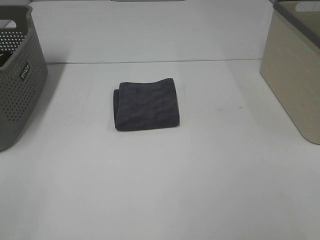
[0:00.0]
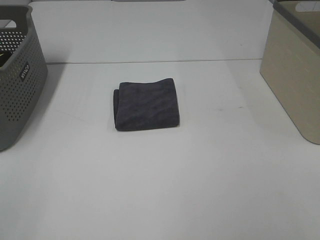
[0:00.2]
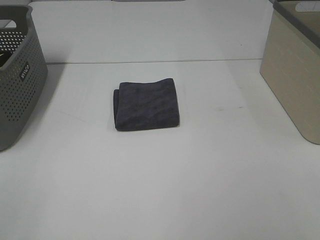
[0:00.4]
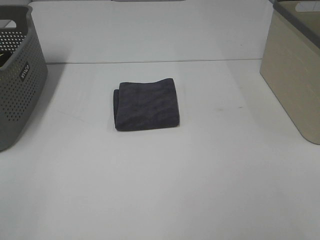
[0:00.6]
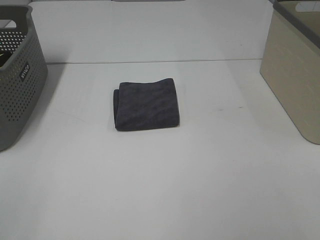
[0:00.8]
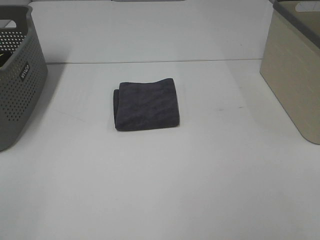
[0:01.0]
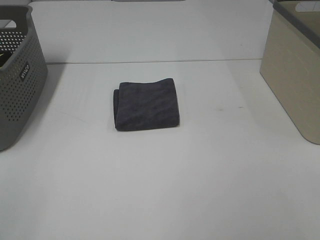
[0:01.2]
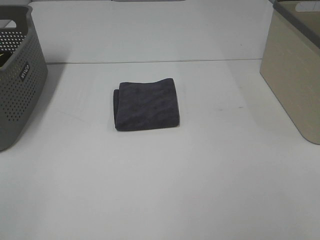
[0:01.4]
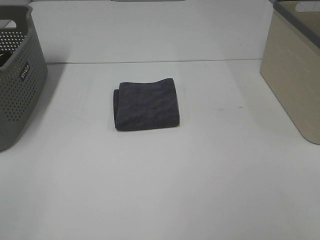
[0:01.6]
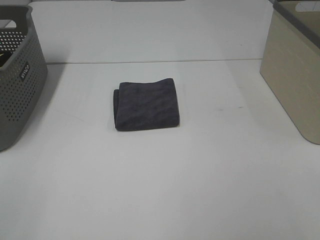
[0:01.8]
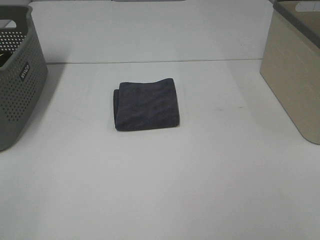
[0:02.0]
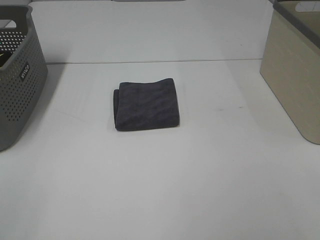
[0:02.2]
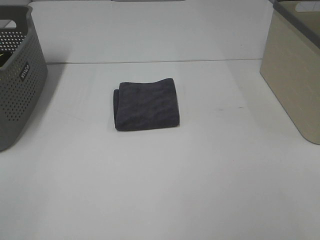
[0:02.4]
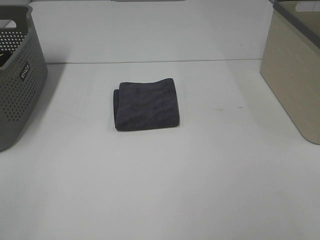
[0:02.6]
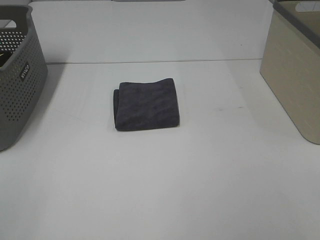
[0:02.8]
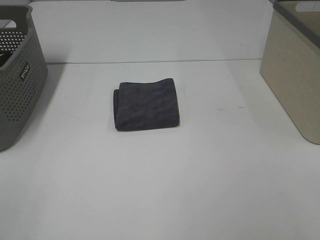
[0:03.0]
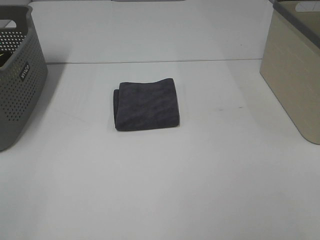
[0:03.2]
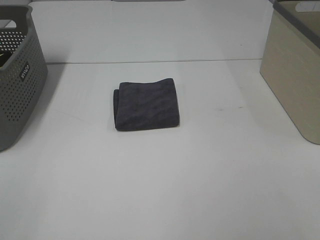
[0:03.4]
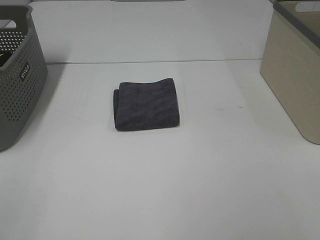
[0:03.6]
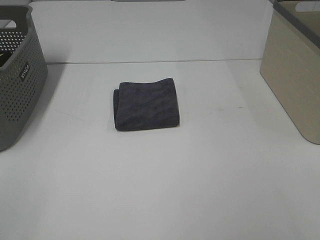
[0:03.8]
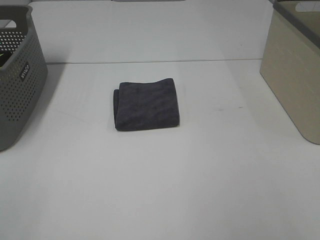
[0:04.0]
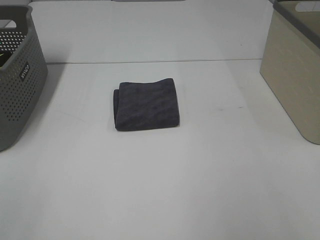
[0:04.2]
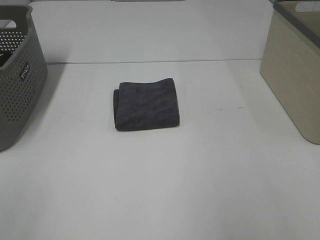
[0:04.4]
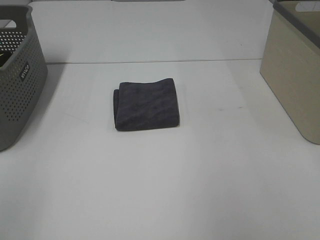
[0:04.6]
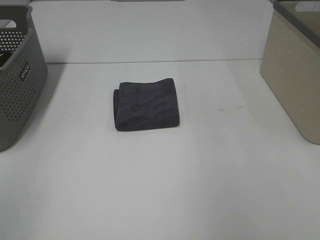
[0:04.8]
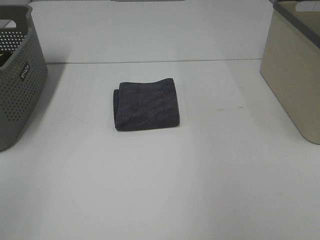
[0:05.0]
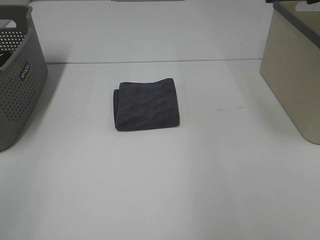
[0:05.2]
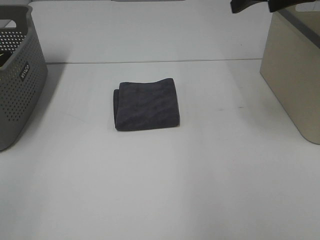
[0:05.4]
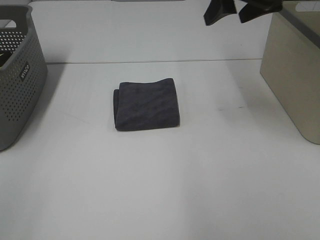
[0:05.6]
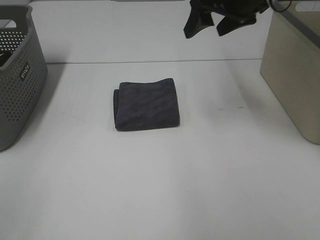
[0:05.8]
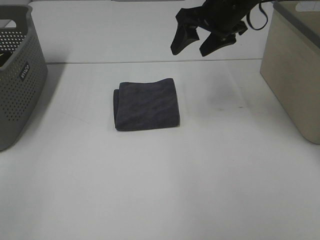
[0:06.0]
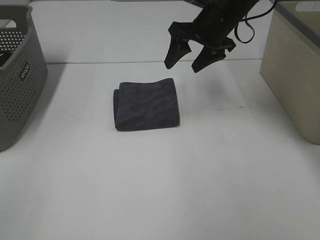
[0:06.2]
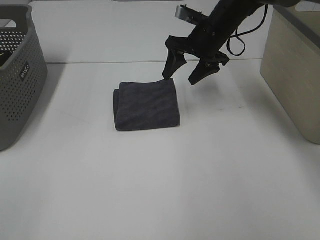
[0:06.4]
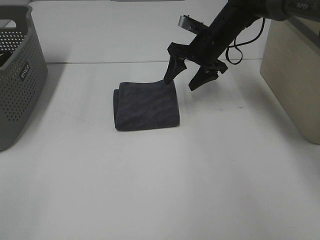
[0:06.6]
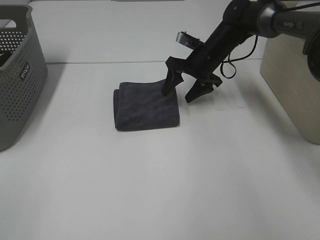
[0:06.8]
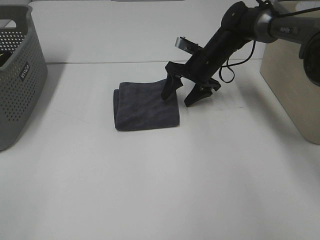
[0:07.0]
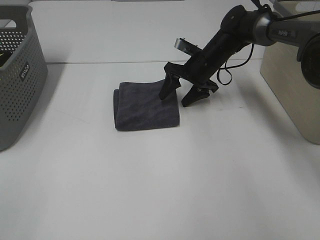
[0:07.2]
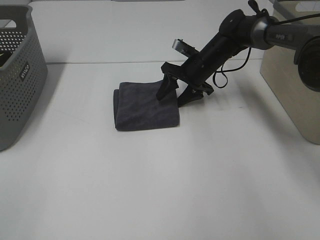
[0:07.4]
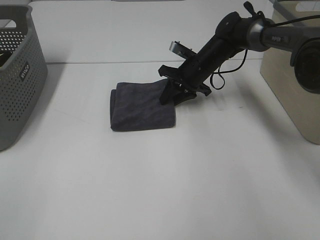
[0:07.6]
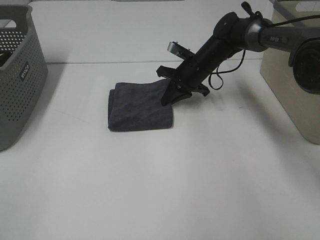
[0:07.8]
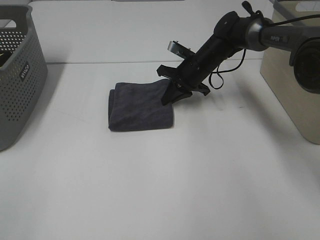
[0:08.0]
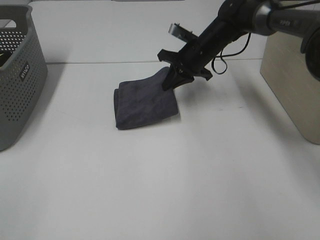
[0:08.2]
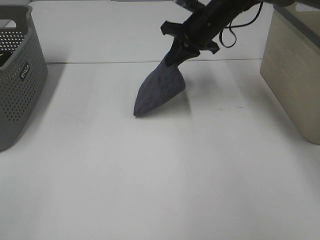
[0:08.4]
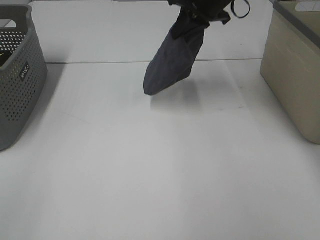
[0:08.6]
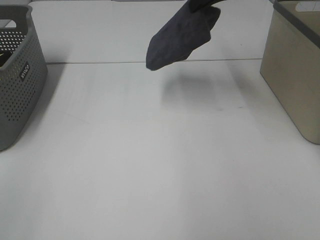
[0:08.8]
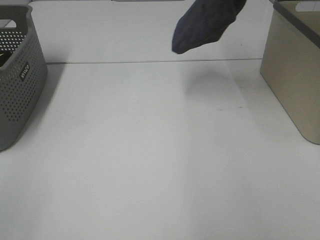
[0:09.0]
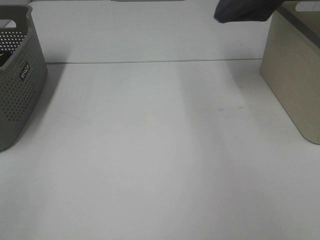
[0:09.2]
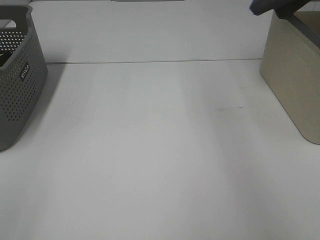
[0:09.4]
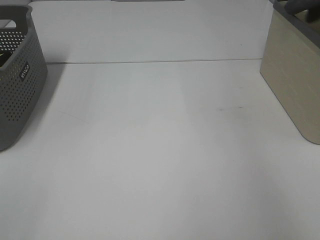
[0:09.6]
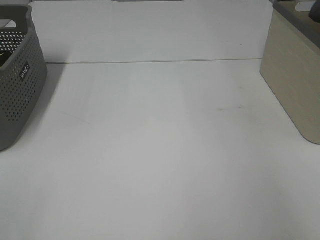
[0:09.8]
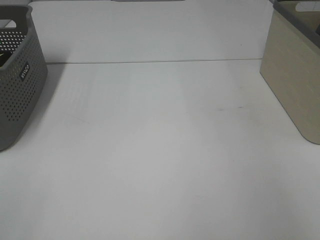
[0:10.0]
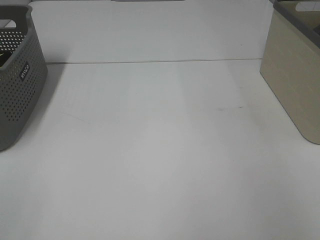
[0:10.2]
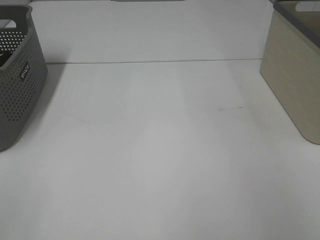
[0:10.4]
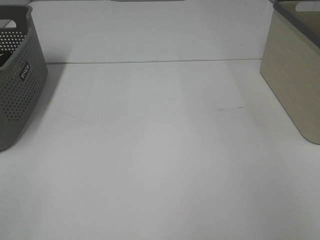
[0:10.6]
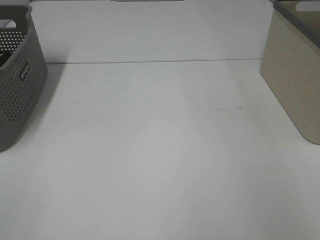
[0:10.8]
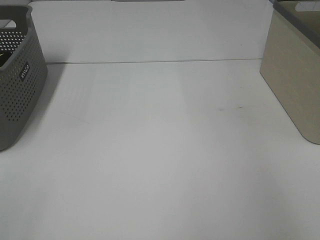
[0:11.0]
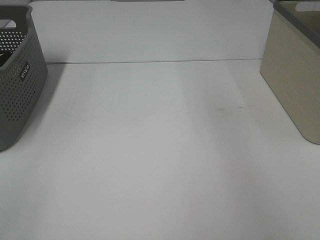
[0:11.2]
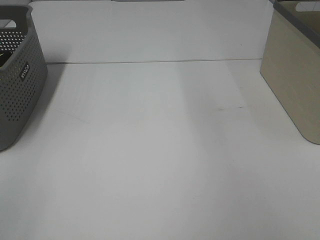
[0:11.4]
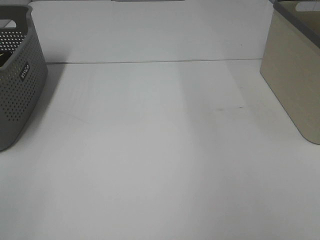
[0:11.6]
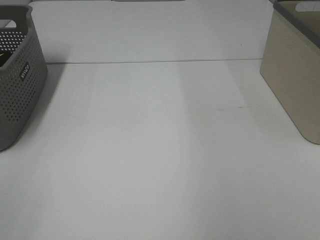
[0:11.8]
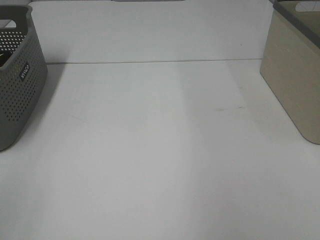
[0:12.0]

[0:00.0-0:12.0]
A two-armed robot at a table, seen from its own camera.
Step, 0:00.0 to 0:07.6: Right hand: grab the folded grey towel.
Step, 0:07.8 to 0:10.8: Right hand: place the grey towel in right basket.
0:00.0 to 0:03.0: Both grippers stay about where they are.
0:04.4 to 0:06.0: The right gripper travels forward and to the left by some 35 cm.
0:06.0 to 0:07.6: The right gripper travels downward by some 15 cm, and closes its fingers.
0:07.6 to 0:09.0: The right gripper moves upward, approximately 30 cm.
0:09.0 to 0:10.4: The right gripper is displaced to the right by about 25 cm.

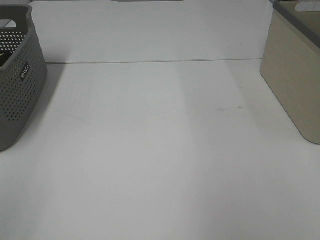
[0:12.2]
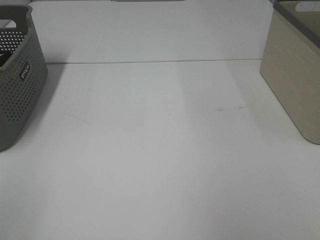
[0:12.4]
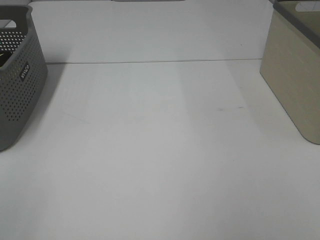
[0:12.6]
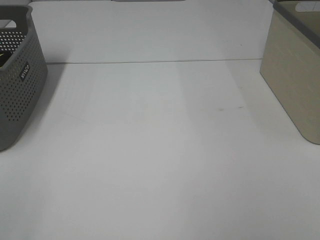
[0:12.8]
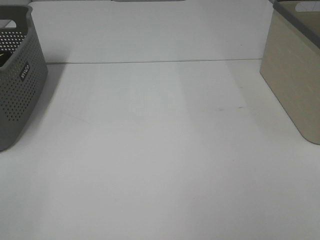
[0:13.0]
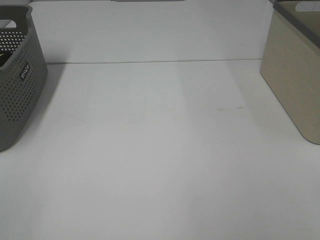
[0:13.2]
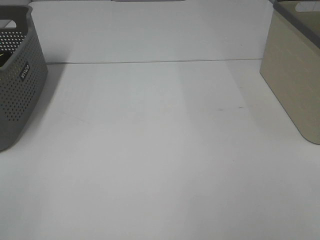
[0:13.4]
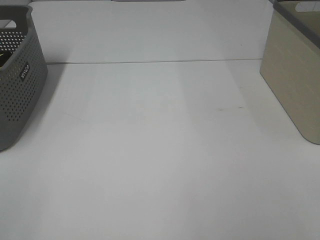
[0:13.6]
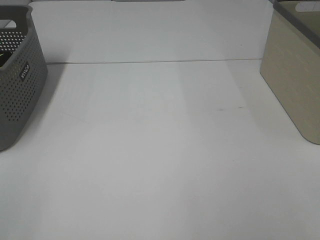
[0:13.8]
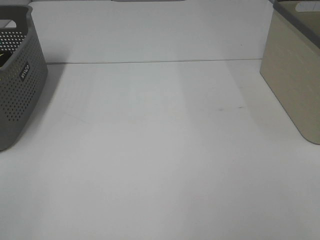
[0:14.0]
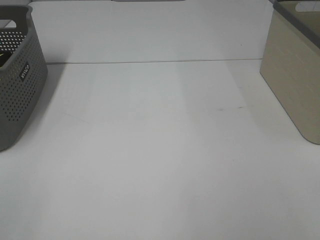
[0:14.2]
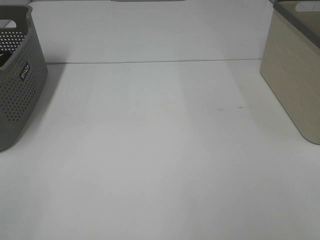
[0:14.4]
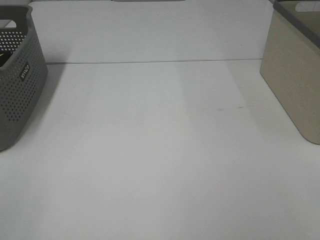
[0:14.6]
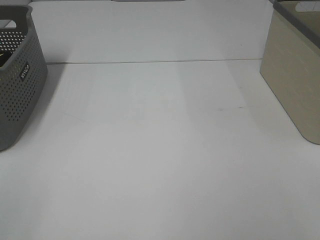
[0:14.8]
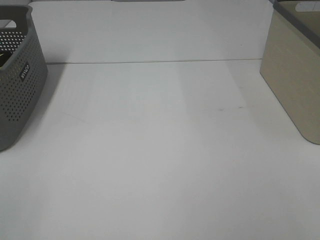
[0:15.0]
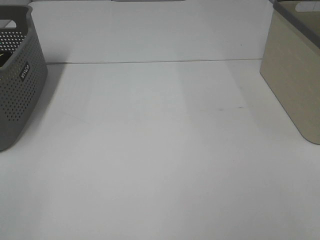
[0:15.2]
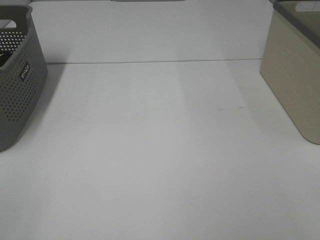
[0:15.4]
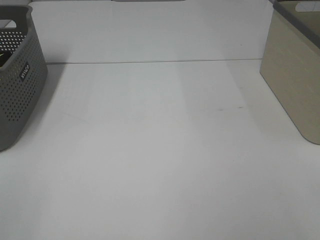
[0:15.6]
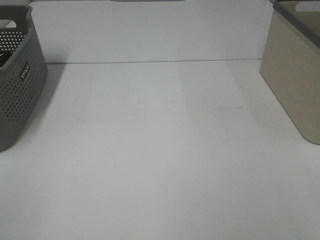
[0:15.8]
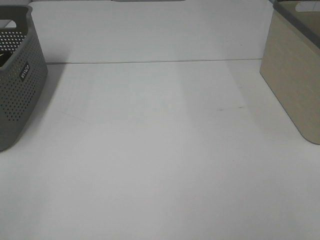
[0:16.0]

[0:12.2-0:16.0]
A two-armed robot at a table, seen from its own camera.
0:14.8 to 0:16.0: Both grippers stay put.

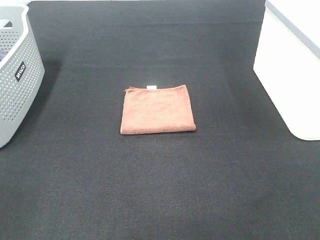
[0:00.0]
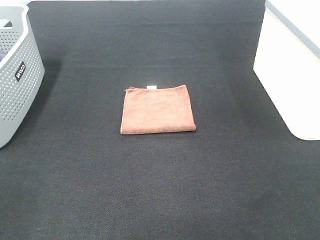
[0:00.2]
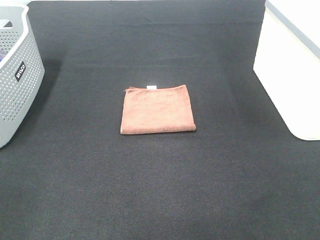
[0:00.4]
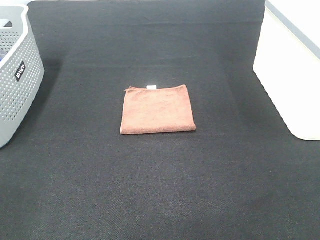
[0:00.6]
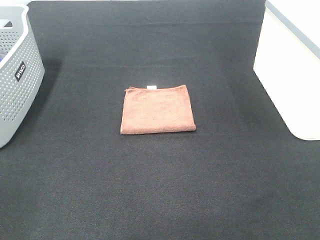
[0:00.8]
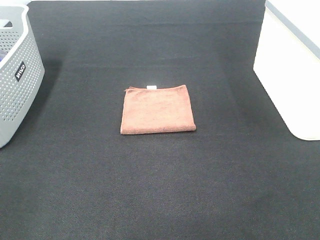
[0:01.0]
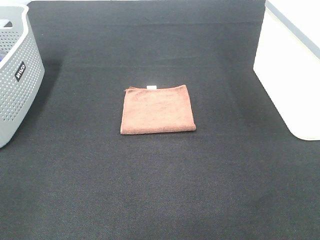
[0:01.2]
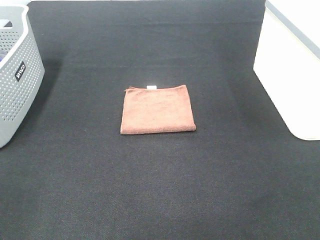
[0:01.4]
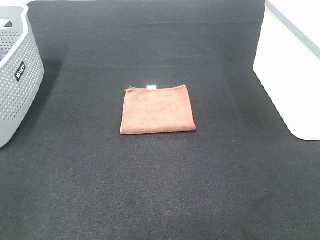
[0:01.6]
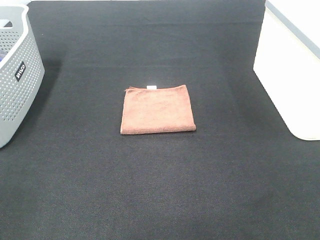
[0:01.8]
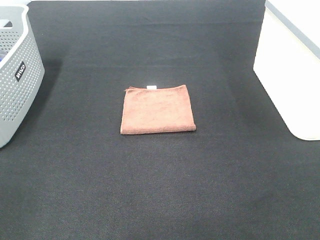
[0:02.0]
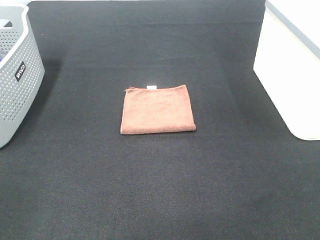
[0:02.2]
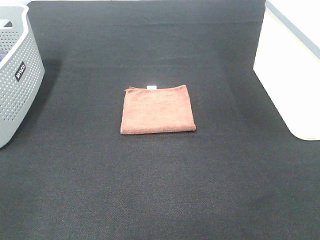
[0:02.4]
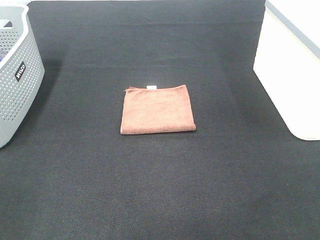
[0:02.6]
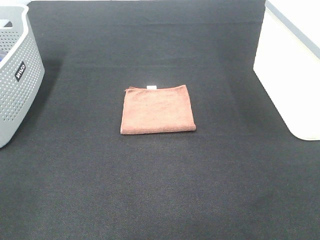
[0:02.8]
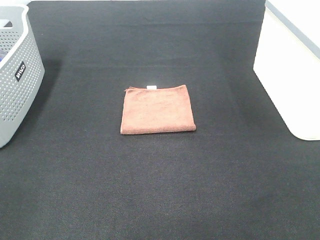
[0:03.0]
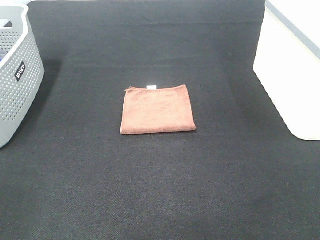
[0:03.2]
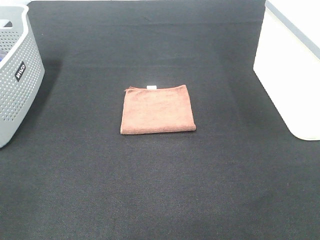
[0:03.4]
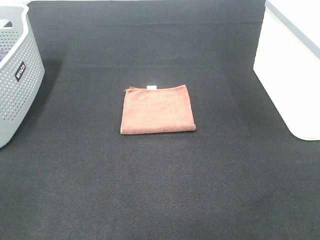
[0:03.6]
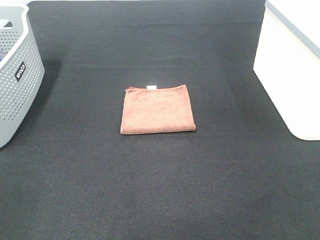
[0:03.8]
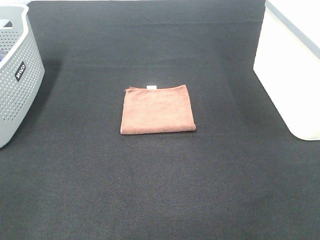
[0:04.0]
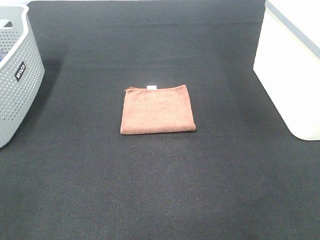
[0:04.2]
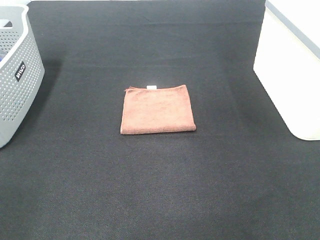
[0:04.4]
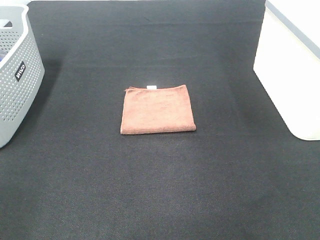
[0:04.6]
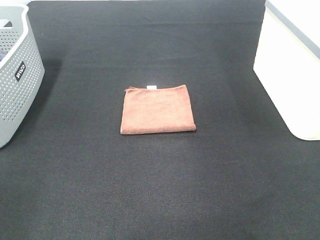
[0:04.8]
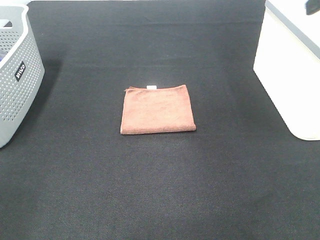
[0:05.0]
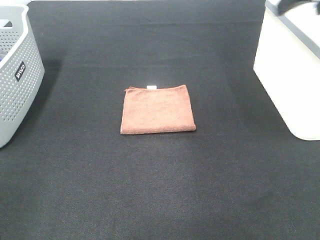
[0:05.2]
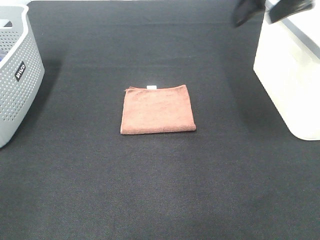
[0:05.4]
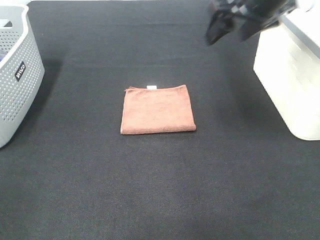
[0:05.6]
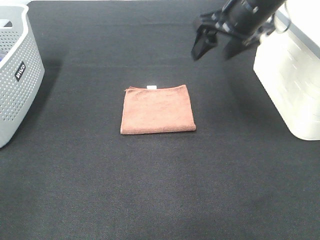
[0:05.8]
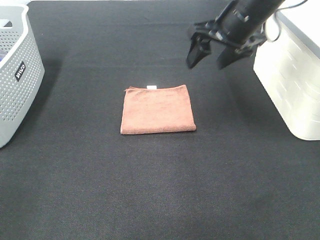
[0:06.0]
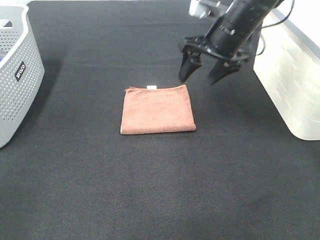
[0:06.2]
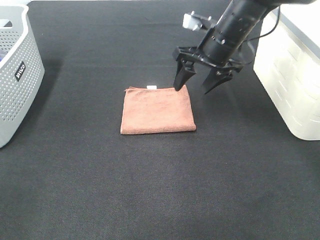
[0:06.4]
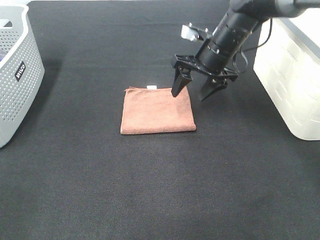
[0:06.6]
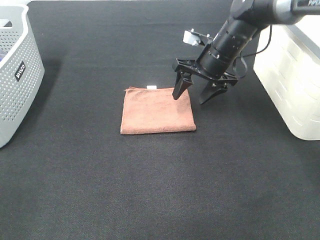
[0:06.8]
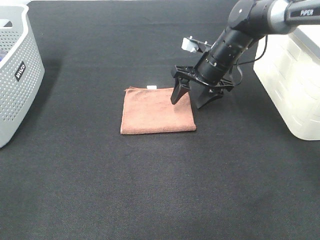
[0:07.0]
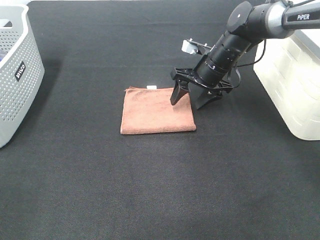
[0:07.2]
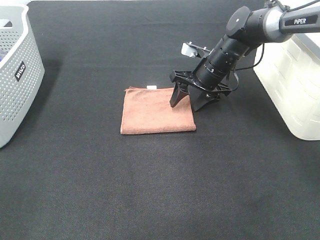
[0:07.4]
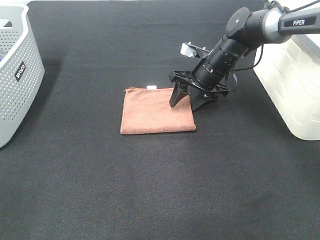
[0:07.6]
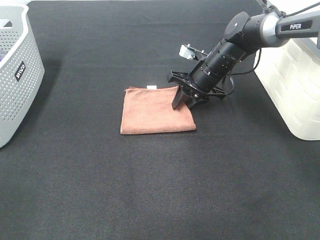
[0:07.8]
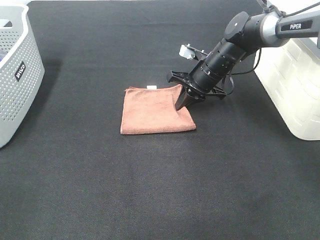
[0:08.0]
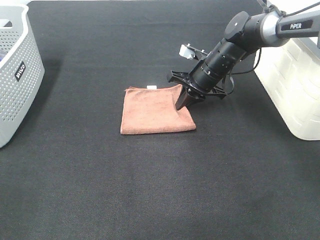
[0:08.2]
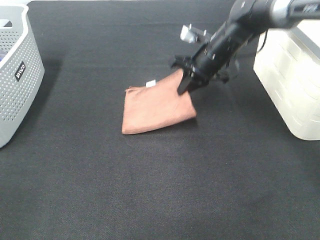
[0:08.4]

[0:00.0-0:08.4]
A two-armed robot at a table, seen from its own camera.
Step, 0:00.0 to 0:08.0: Right hand: grab the folded brown towel.
0:00.0 to 0:02.8: Neither gripper changes place.
0:04.2 to 0:05.6: The right gripper goes about 30 cm forward and to the left.
0:05.6 to 0:07.0: The right gripper travels downward and forward by roughly 20 cm.
0:07.0 to 0:08.4: The right gripper closes.
